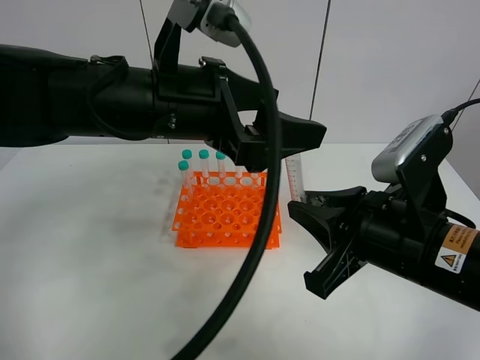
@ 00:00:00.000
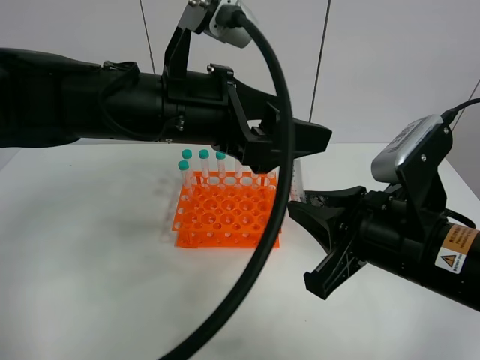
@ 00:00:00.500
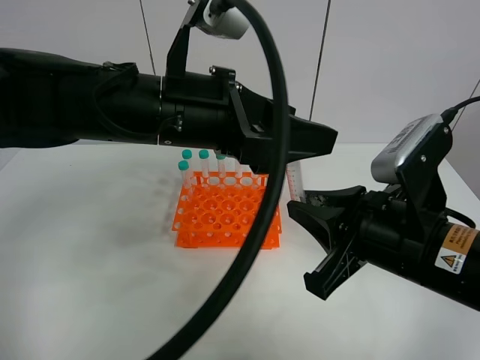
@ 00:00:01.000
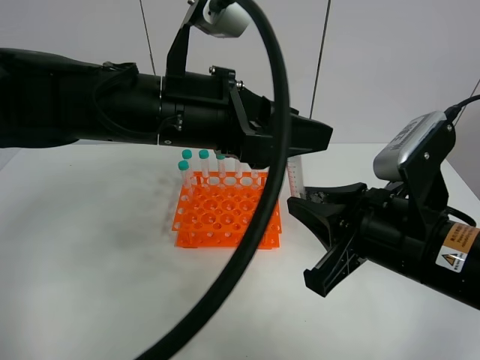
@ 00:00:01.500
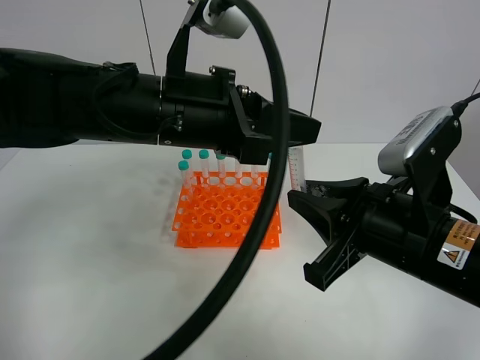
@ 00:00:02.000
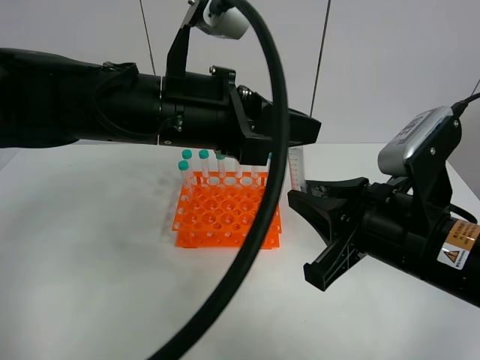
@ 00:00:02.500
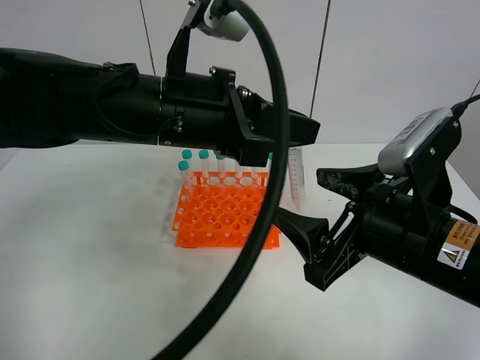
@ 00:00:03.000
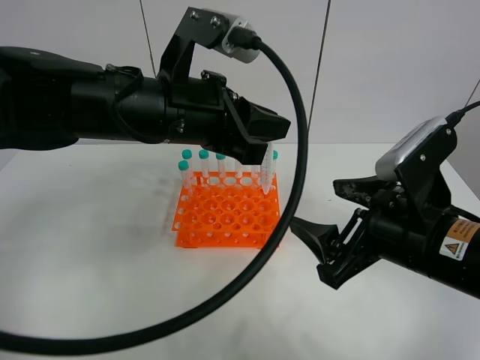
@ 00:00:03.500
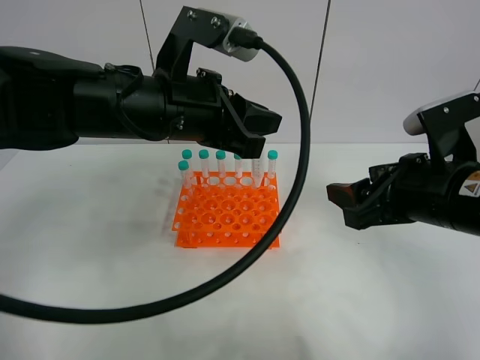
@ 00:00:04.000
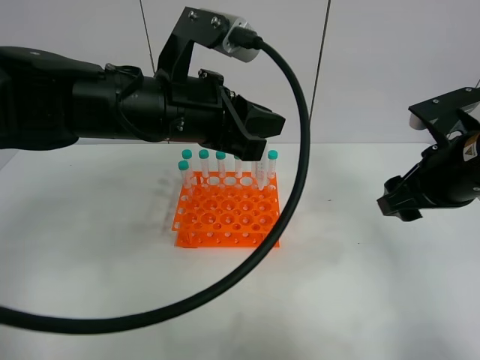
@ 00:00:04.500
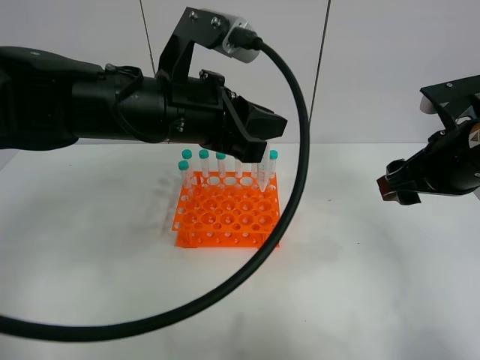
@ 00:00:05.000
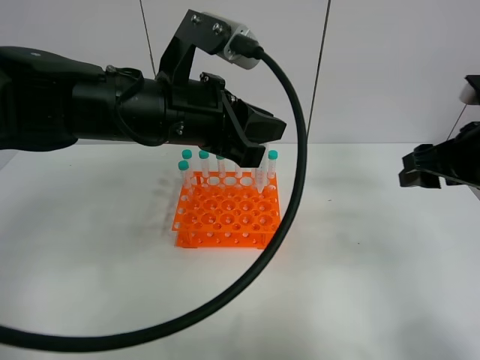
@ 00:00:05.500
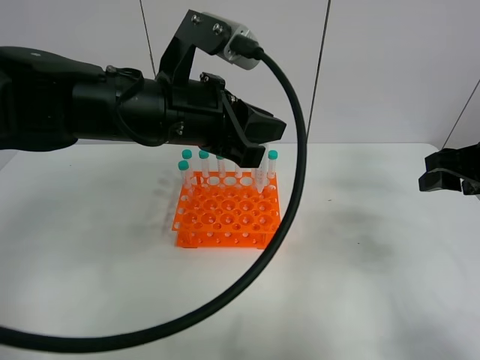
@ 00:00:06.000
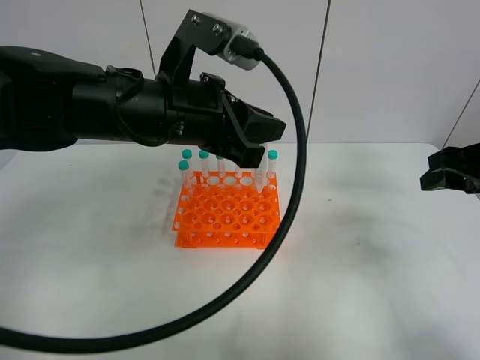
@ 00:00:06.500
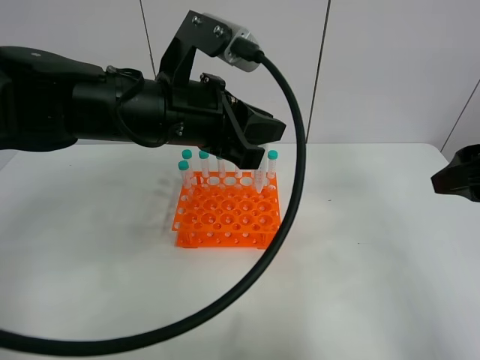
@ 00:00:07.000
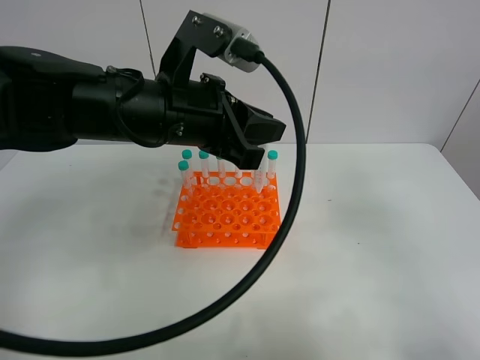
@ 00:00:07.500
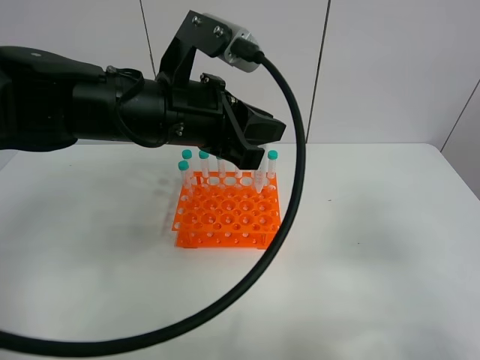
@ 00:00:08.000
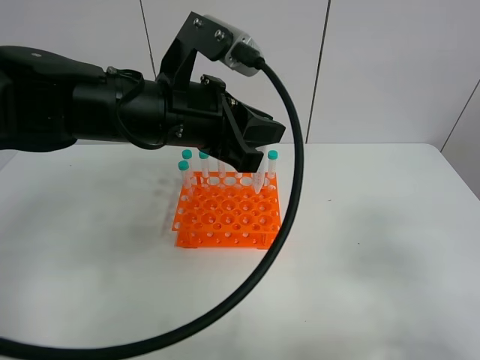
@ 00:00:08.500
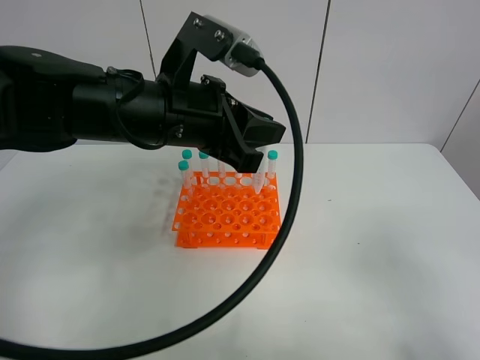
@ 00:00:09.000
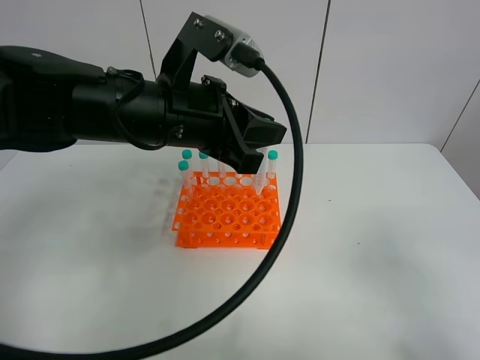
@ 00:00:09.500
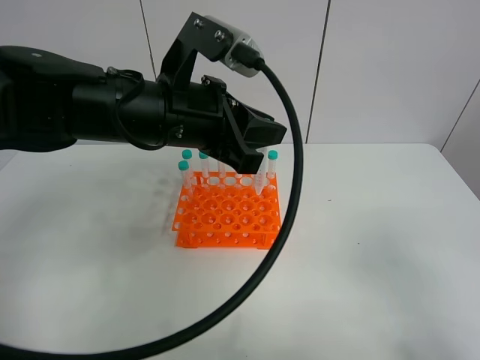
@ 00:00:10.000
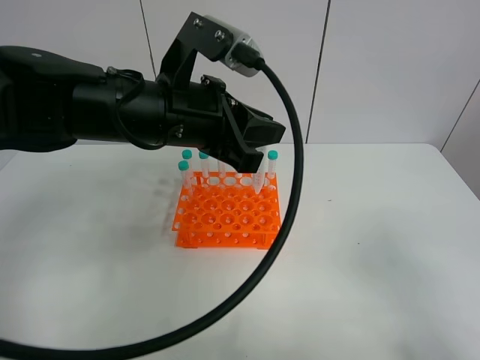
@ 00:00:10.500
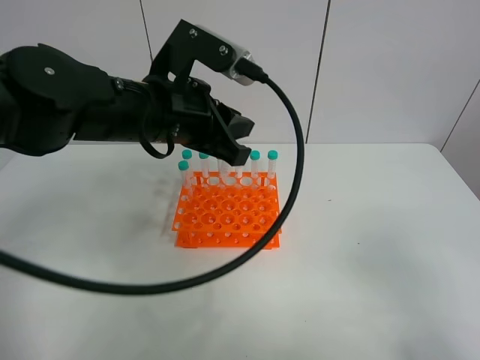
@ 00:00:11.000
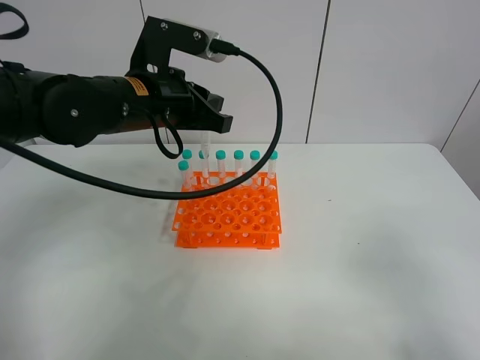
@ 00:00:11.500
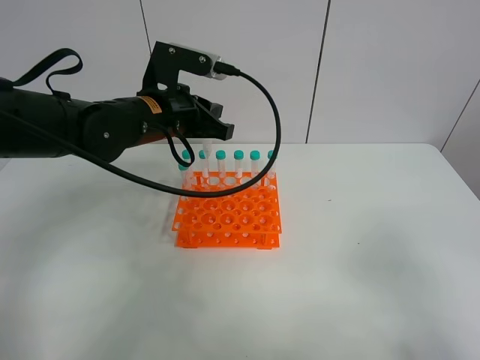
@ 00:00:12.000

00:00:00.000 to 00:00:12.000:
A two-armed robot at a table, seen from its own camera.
Task of the whole recording: Put the test tube on the table back onto the test tube rack.
Step, 00:00:00.000 to 00:00:03.500: Move the test tube from the right gripper to the left gripper.
00:00:00.000 to 00:00:02.000: The left gripper closes its fingers.
00:00:02.000 to 00:00:04.000: The right gripper ends up roughly 5 cm from where it was, and opens up.
00:00:04.000 to 00:00:06.000: The right gripper shifts some 15 cm to the right and forward.
00:00:06.000 to 00:00:08.000: The right gripper is displaced backward by roughly 20 cm.
00:00:08.000 to 00:00:10.000: The right gripper is displaced backward by about 5 cm.
00:00:10.000 to 00:00:12.000: The left gripper travels forward and downward by some 10 cm.

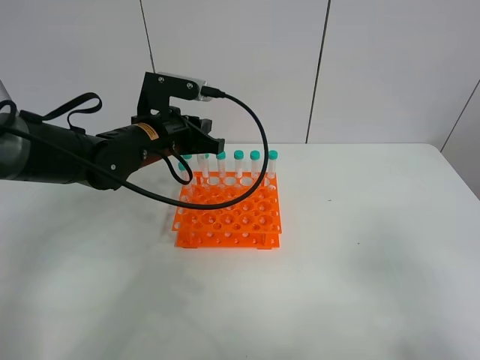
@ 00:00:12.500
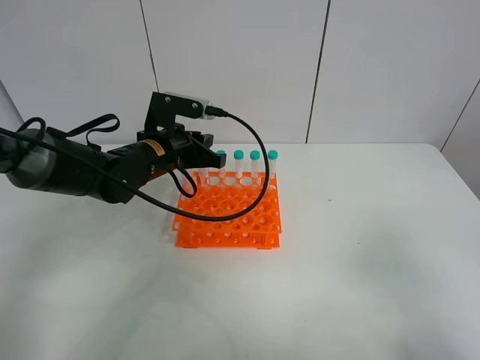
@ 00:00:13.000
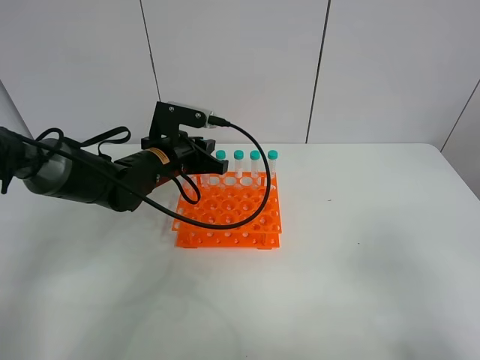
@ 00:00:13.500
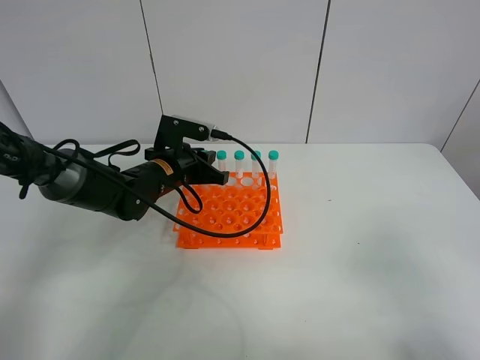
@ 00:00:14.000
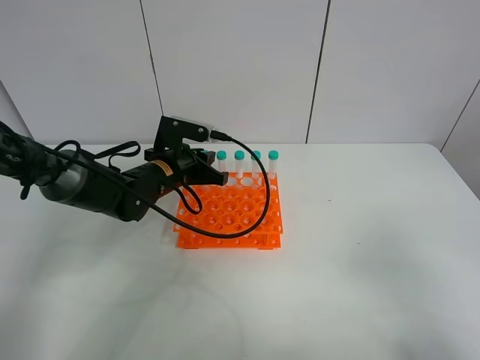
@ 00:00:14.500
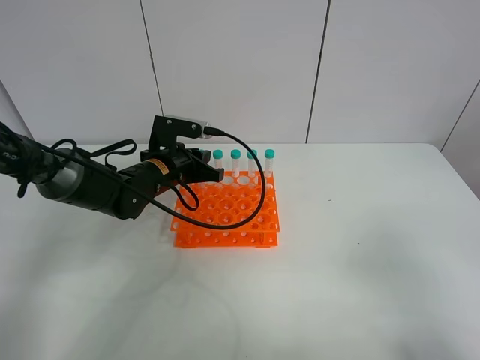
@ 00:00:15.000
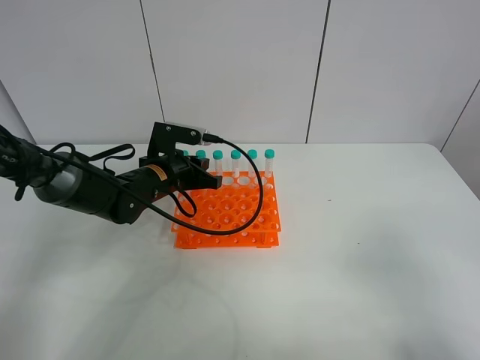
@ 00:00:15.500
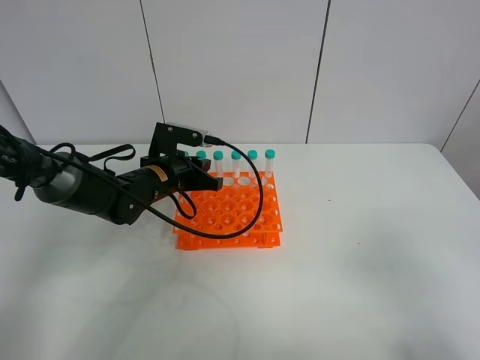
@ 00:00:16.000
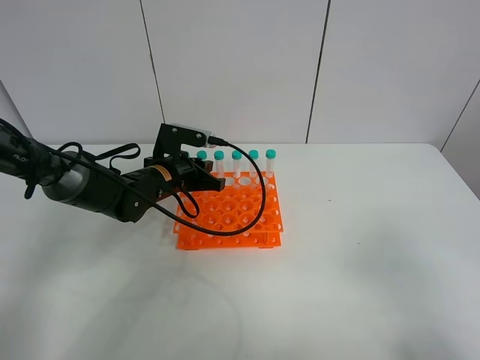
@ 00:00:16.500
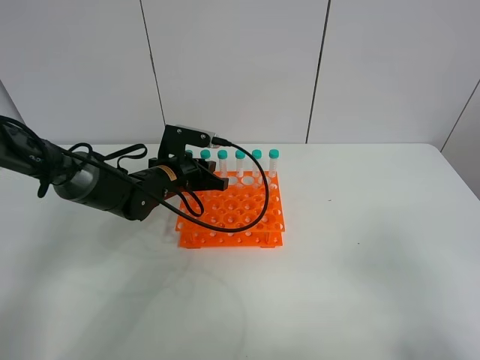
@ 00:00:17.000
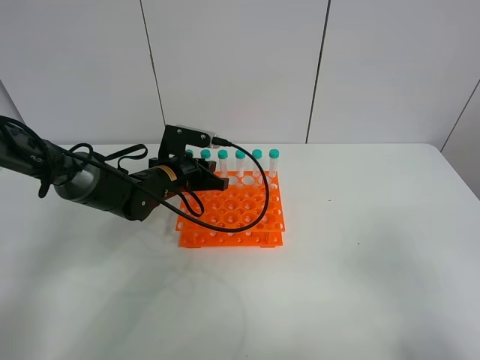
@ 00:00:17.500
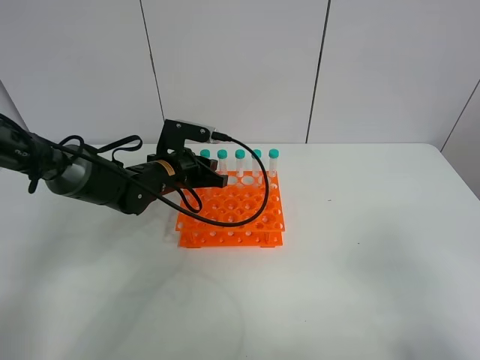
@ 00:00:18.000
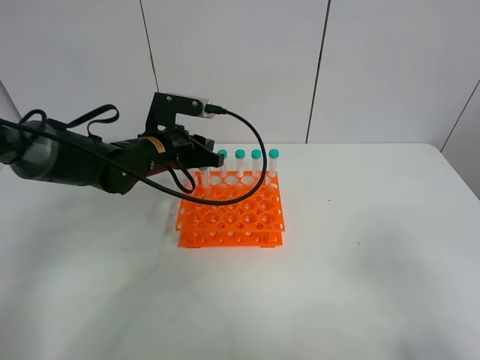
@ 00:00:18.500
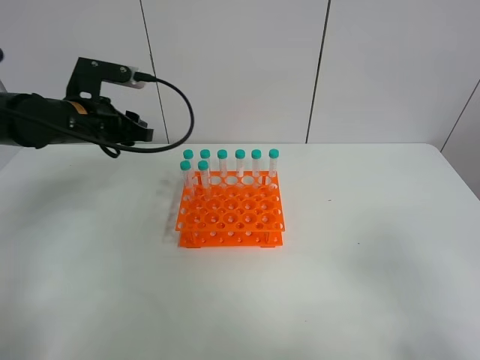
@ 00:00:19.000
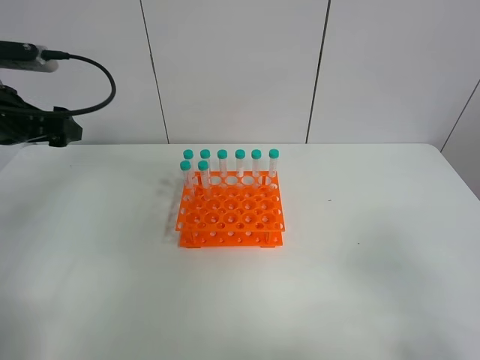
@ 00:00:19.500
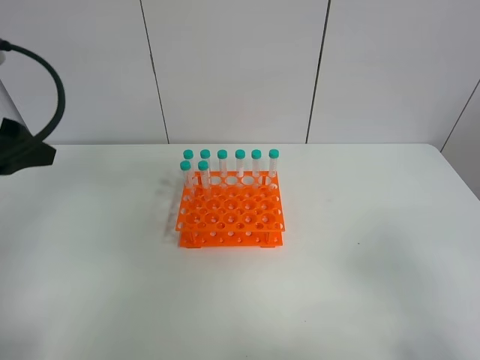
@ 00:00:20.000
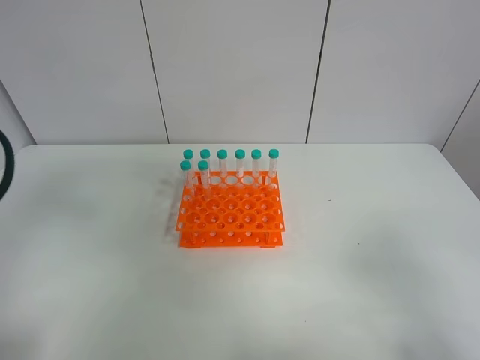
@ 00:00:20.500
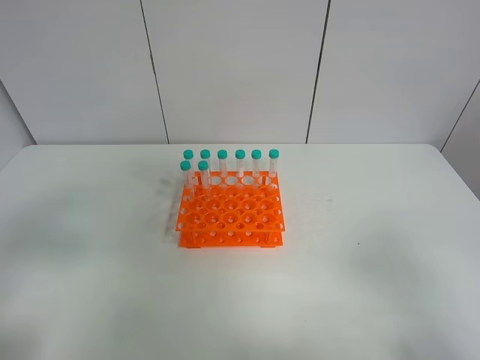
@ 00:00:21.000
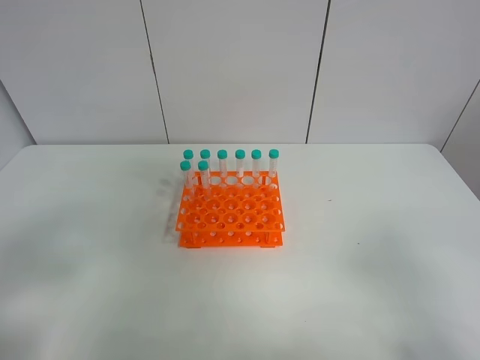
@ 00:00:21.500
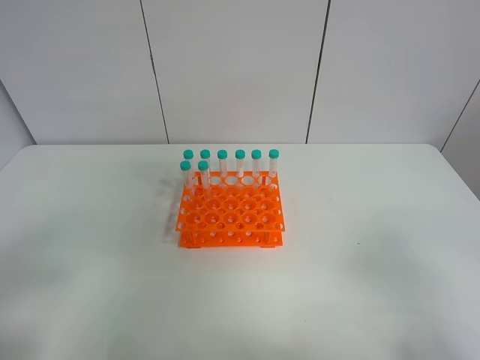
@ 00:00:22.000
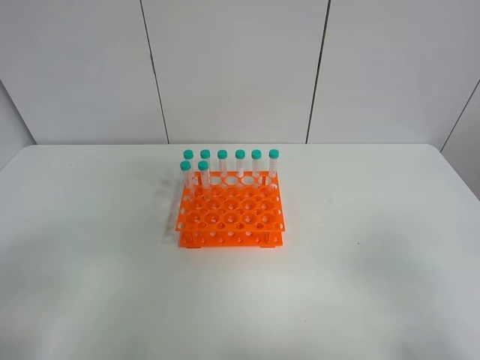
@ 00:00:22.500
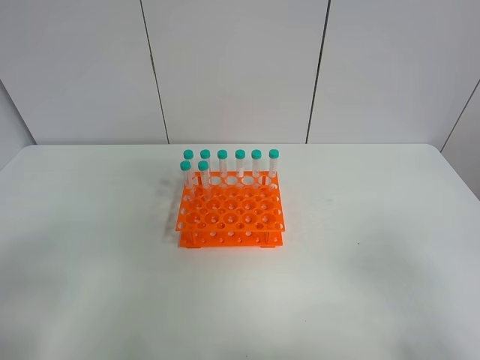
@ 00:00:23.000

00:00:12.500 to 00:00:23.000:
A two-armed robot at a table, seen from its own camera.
Task of the whole recording: Put the test tube on the table back onto the test tube rack.
Step, 00:00:12.500 to 00:00:18.500: Place the test tube on the test tube rack with the left gripper.
00:00:12.500 to 00:00:14.500: The left gripper travels downward by about 5 cm.
00:00:14.500 to 00:00:16.500: The grippers make only small movements.
00:00:16.500 to 00:00:19.000: The left gripper goes some 15 cm upward and to the left, and opens its fingers.
00:00:19.000 to 00:00:21.000: The left gripper moves backward, roughly 30 cm.
